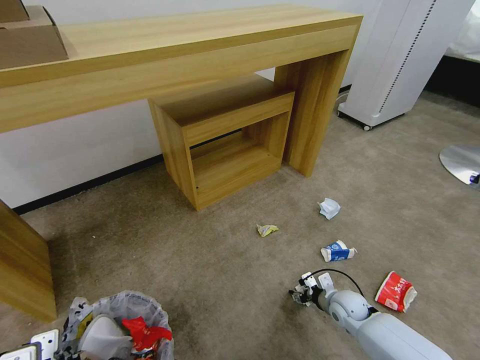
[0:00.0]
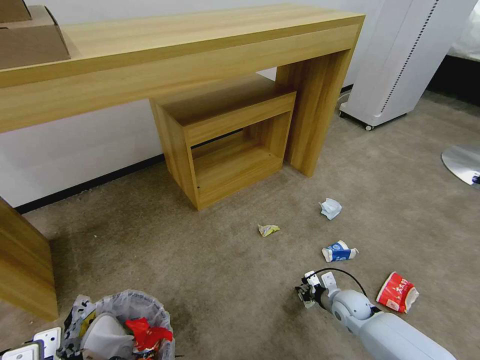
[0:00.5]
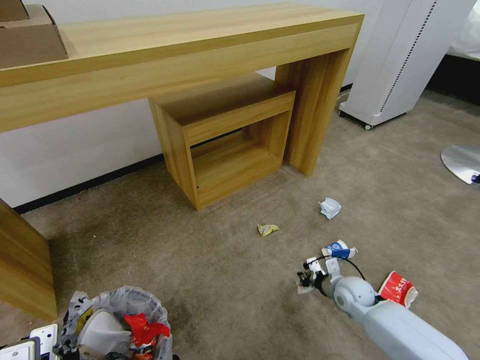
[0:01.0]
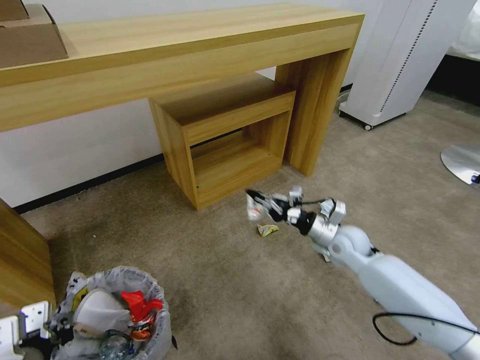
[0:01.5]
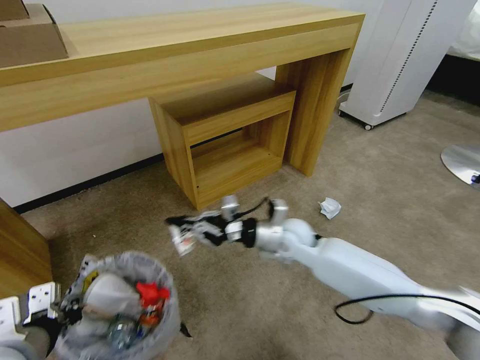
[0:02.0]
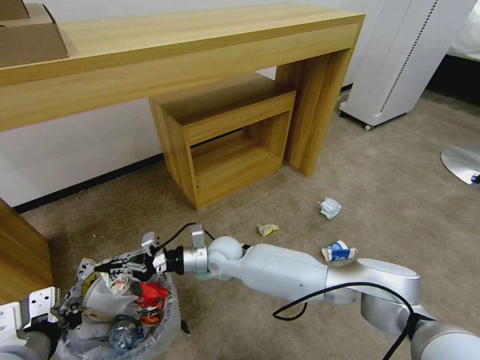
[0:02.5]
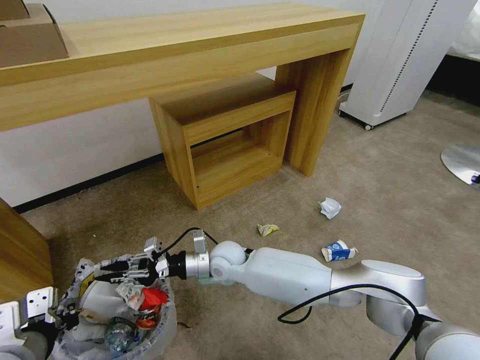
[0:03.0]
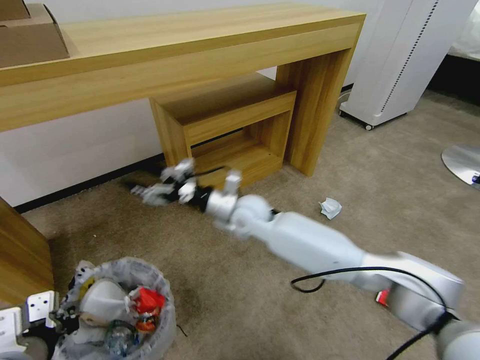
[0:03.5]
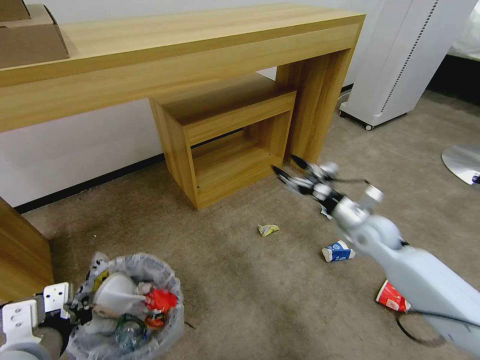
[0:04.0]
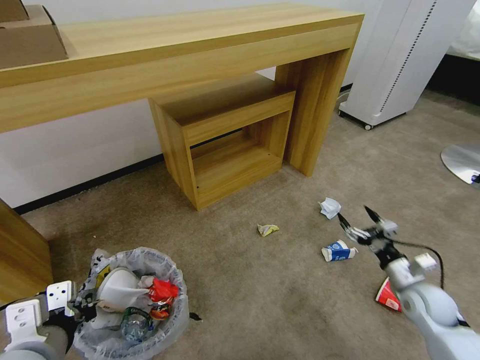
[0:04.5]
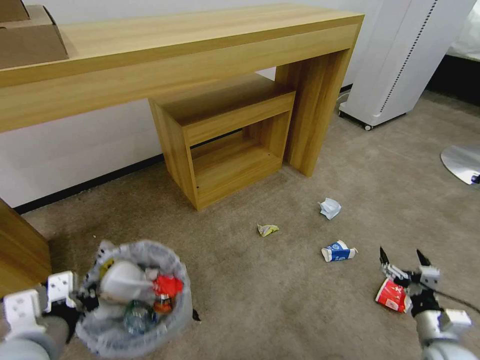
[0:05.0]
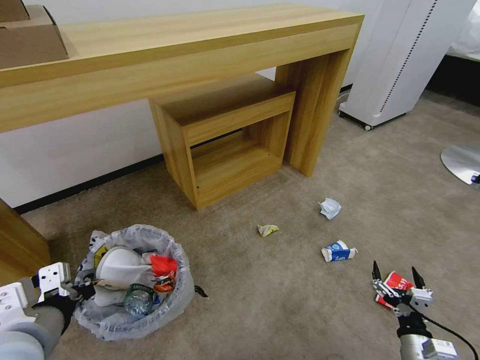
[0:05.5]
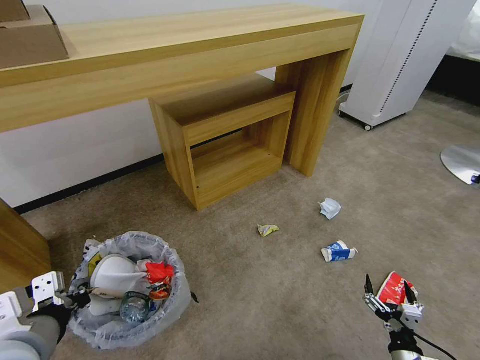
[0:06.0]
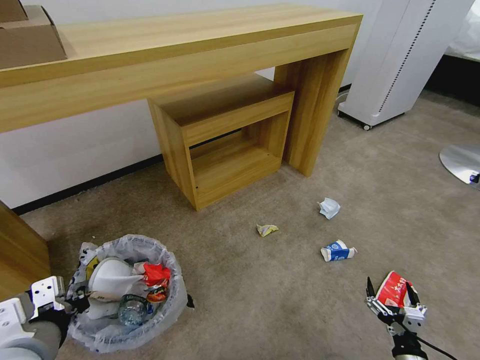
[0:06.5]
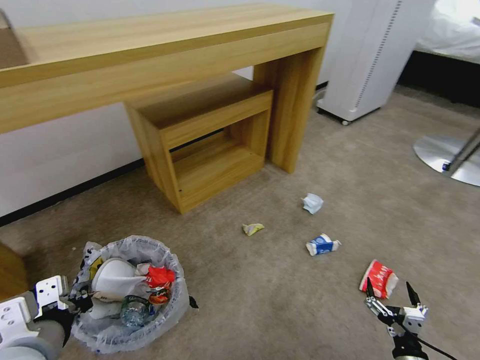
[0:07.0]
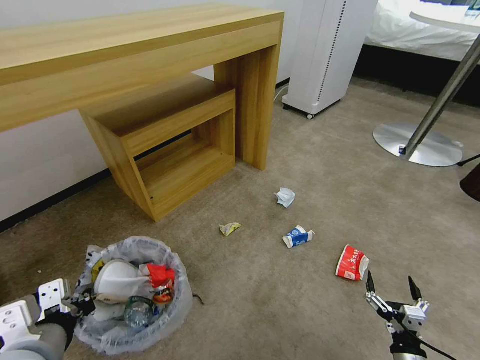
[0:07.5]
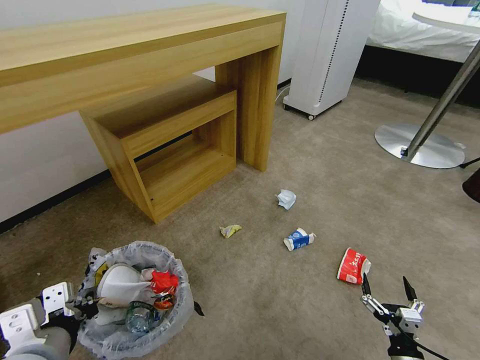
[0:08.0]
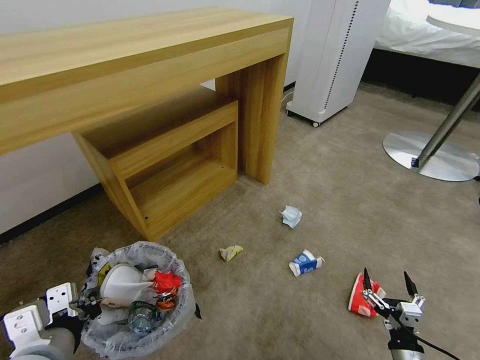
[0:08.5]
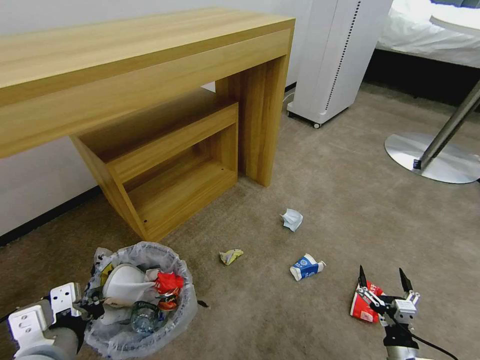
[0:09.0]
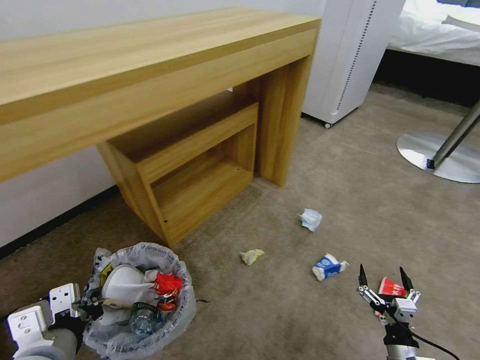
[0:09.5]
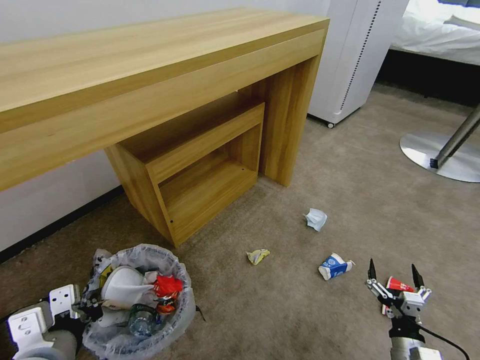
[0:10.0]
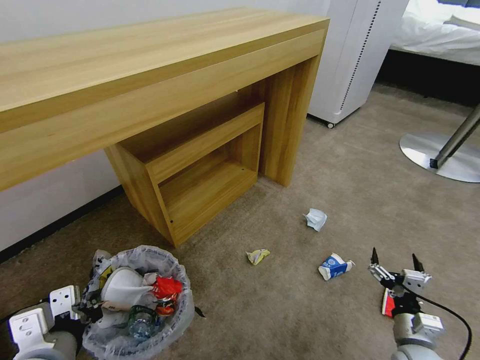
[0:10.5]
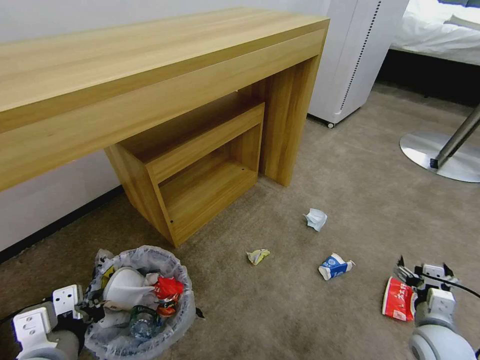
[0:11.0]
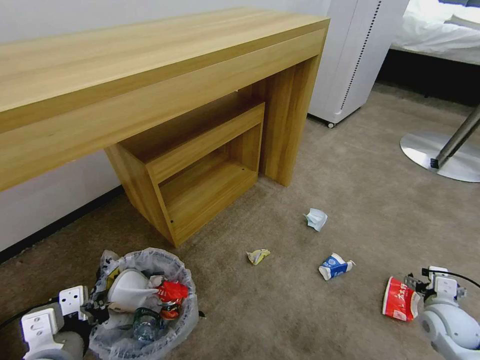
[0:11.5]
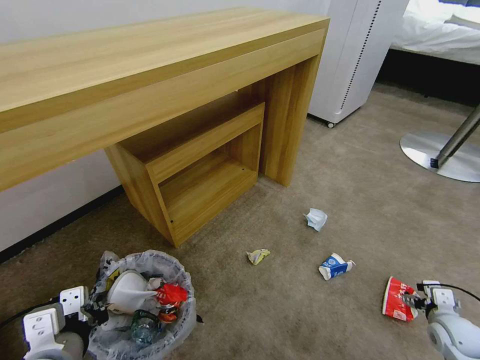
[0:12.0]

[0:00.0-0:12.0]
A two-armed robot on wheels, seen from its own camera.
Task of the whole recording: Pick up the trash bin and place the garbage on the floor into it.
0:00.0 to 0:02.0: The right gripper travels upward, to the left and forward by approximately 30 cm, and closes its fingers. The left gripper goes some 5 cm forward.
0:02.0 to 0:04.0: The right gripper travels to the right by roughly 20 cm, and opens.
0:04.0 to 0:06.0: The right gripper moves backward and downward, roughly 35 cm.
0:10.0 to 0:12.0: The right gripper shifts some 15 cm to the right and forward.

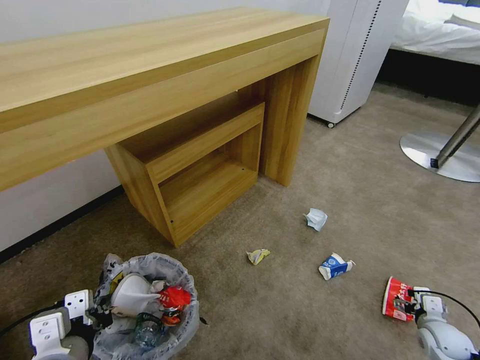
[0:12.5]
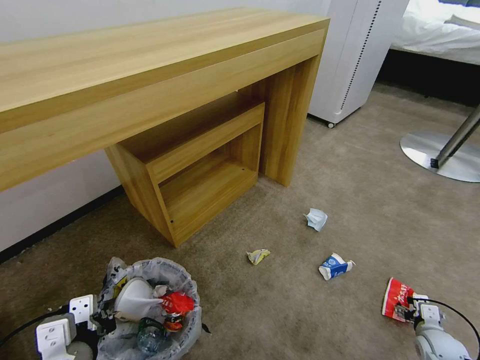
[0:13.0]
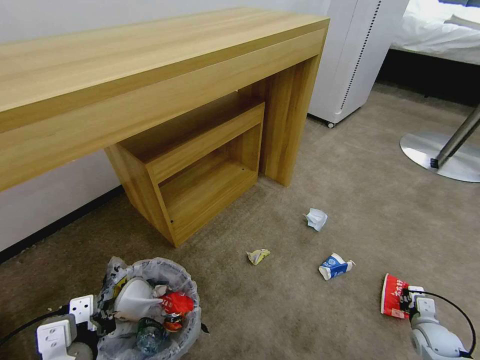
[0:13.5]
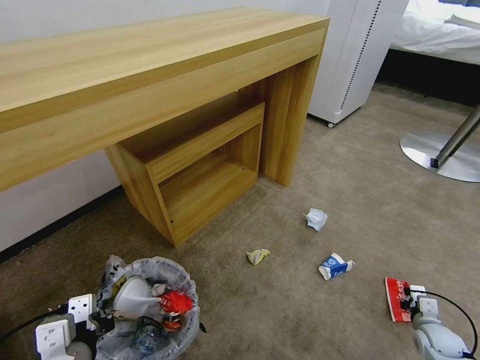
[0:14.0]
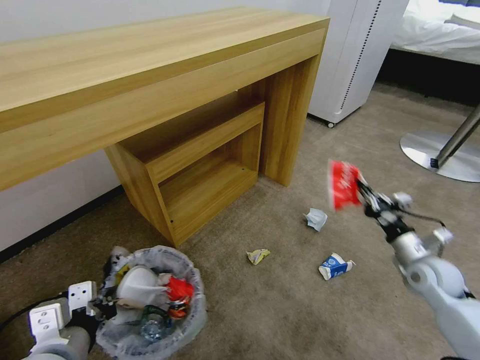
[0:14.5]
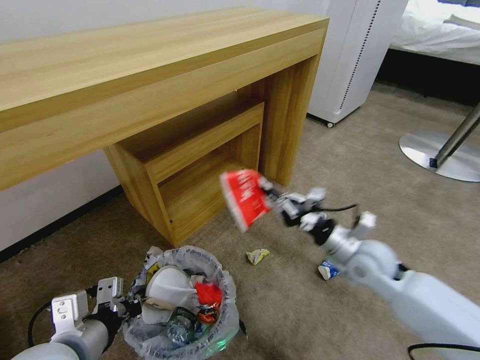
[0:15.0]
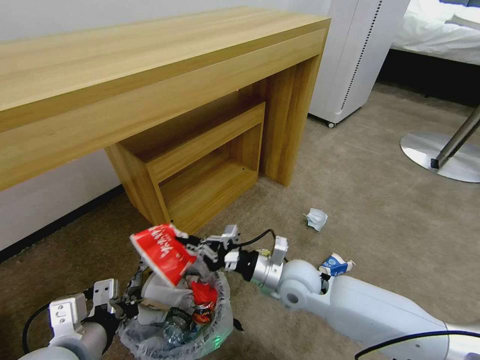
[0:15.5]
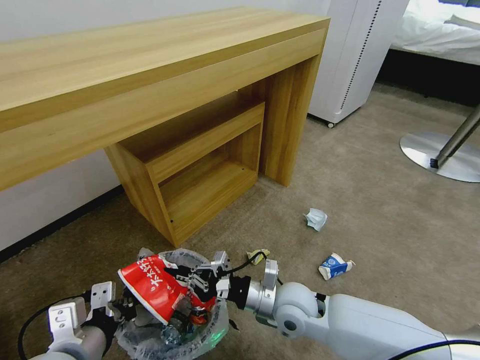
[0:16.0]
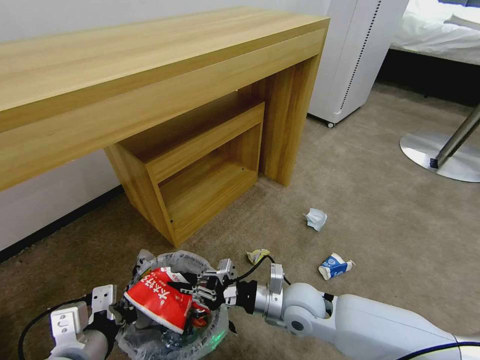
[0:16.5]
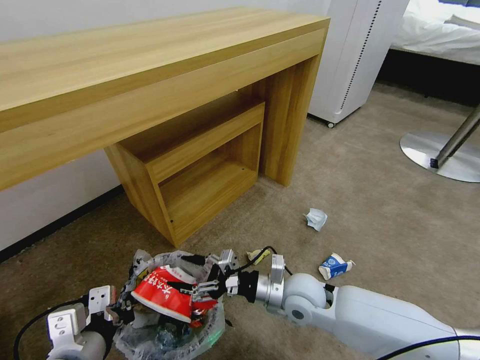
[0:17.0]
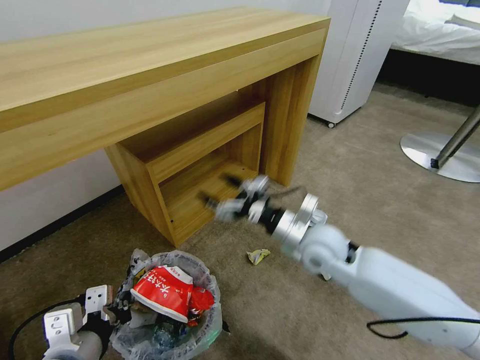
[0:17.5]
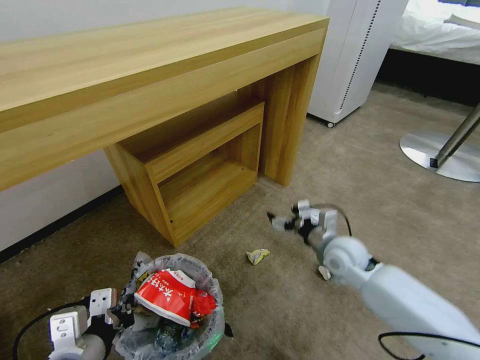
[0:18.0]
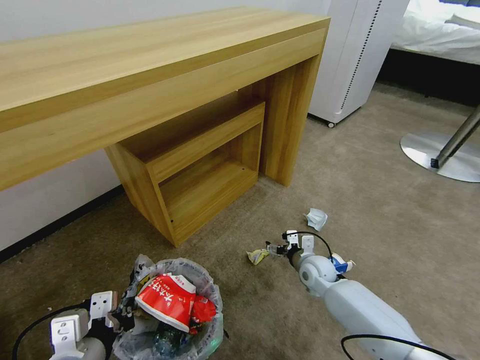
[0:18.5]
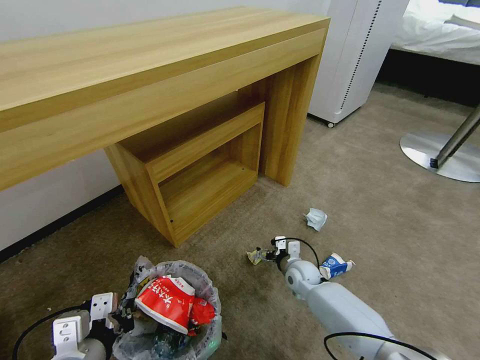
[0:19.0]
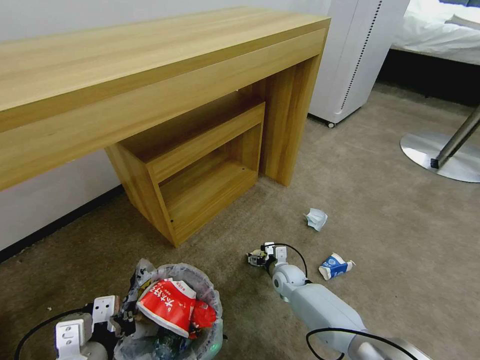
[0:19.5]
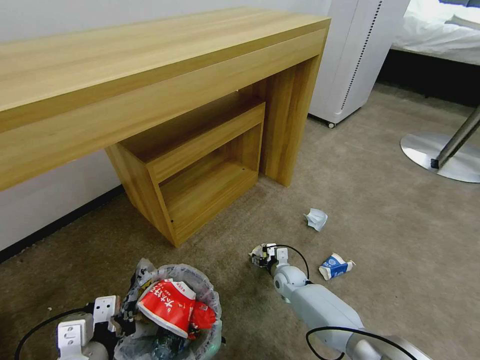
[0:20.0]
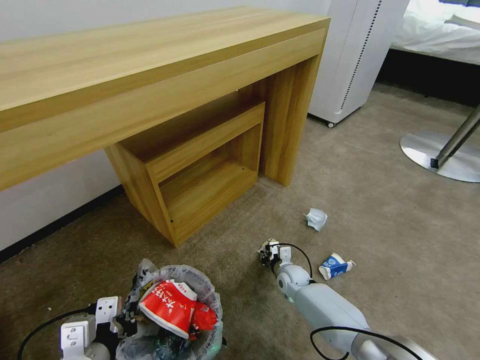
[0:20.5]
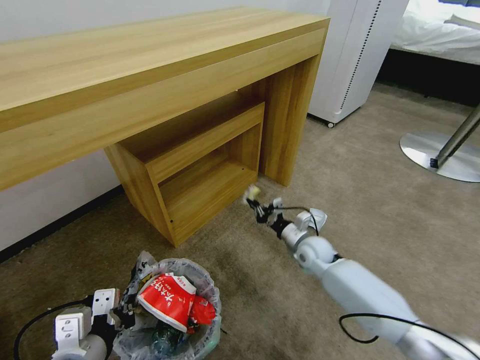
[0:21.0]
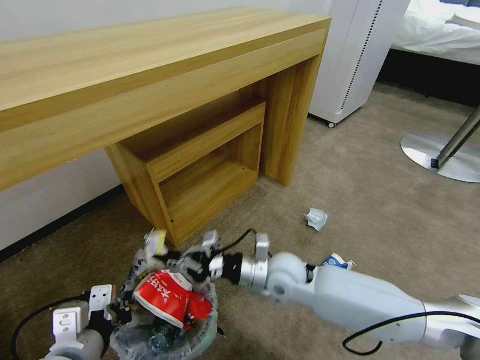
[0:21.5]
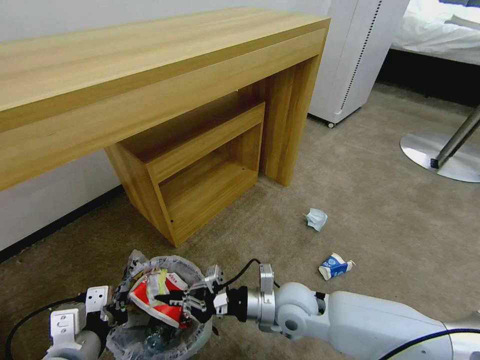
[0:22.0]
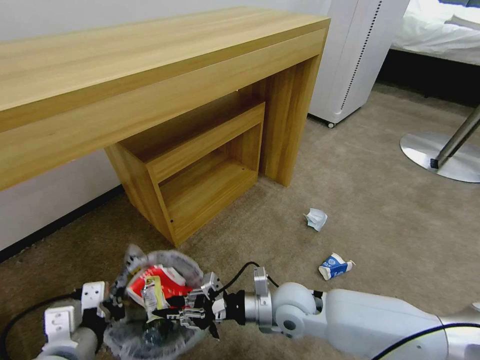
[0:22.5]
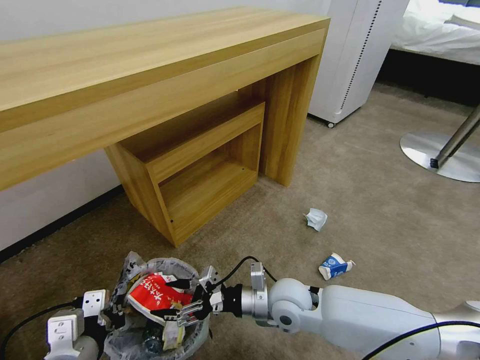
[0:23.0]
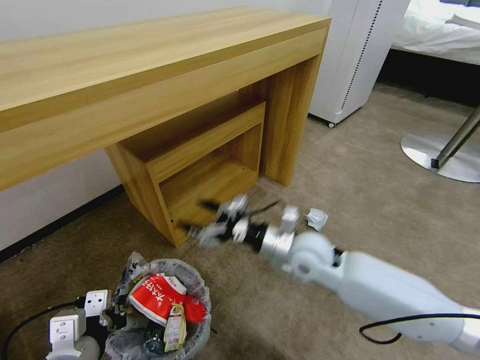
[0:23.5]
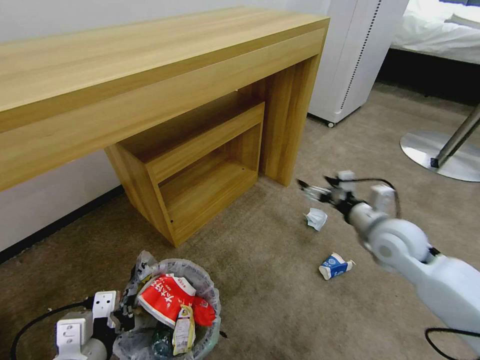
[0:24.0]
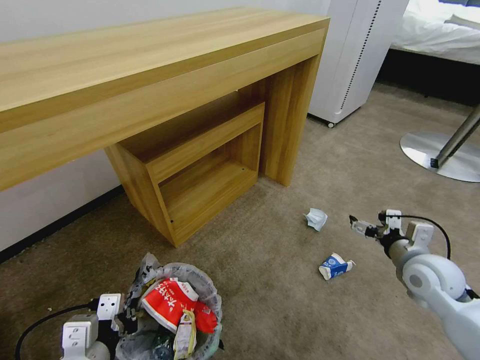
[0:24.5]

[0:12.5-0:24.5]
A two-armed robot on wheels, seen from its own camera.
Task of the whole recording: Pick up the trash bin and place the garbage on the floor into it.
0:12.5 to 0:14.5: The right gripper shifts some 15 cm upward and forward, and closes.
0:14.5 to 0:16.5: The right gripper heads to the left, covering approximately 30 cm.
0:16.5 to 0:18.5: The right gripper is displaced forward, downward and to the right by about 20 cm, and opens up.
0:18.5 to 0:20.5: The right gripper travels downward by about 10 cm, and closes up.
0:20.5 to 0:22.5: The right gripper goes some 25 cm upward and backward.
0:22.5 to 0:24.5: The right gripper heads to the right, covering approximately 30 cm, and opens its fingers.

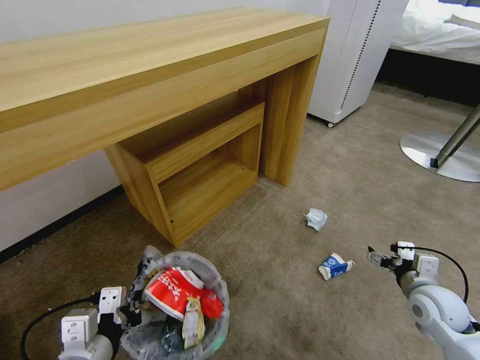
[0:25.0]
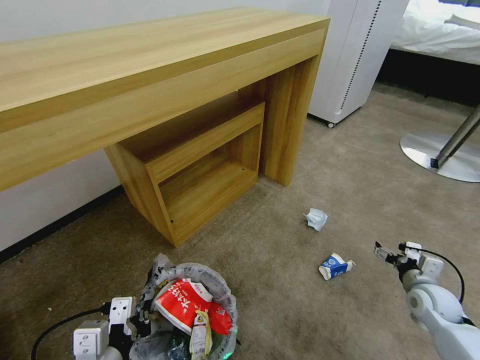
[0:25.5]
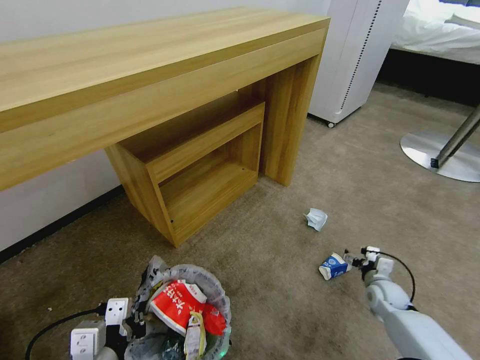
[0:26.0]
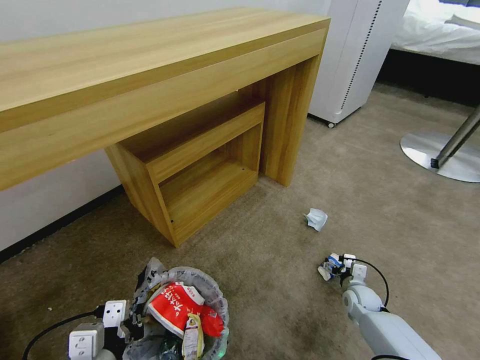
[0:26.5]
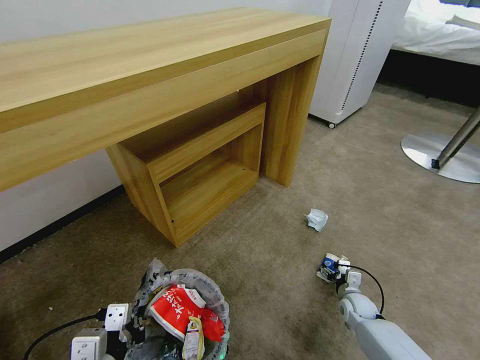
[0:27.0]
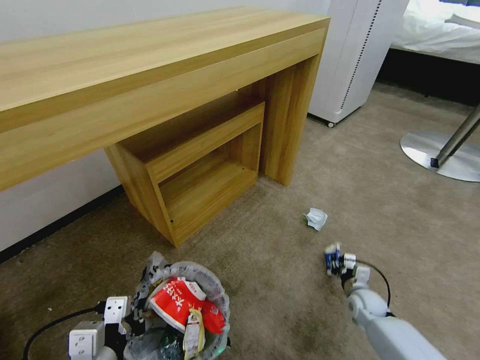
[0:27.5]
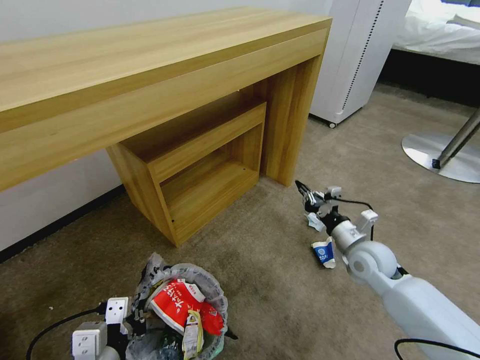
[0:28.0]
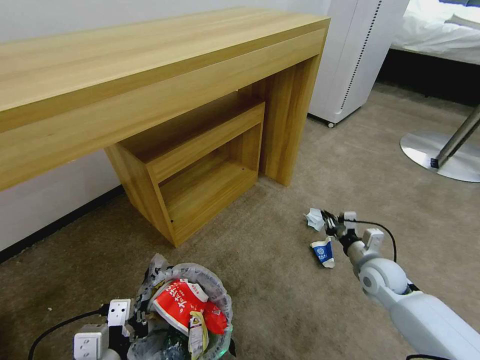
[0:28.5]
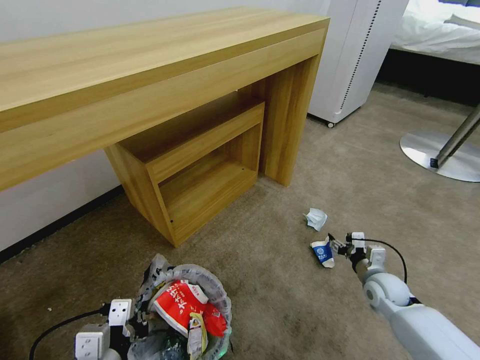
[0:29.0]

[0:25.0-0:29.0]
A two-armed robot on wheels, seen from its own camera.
Task of the whole recording: Pick up the trash bin and place the garbage on the floor into it.
0:25.0 to 0:27.0: The right gripper moves downward, about 20 cm.
0:27.0 to 0:29.0: The right gripper heads upward, covering about 15 cm, and closes, then opens again.
